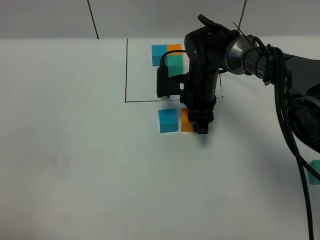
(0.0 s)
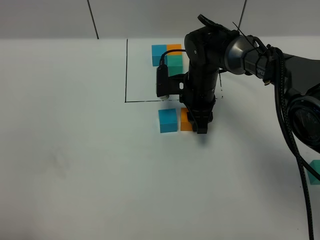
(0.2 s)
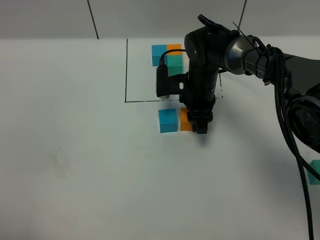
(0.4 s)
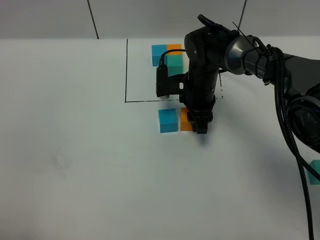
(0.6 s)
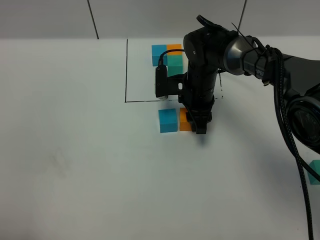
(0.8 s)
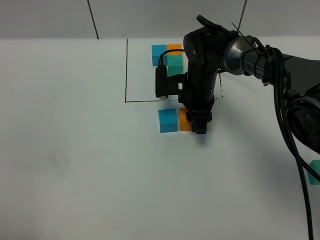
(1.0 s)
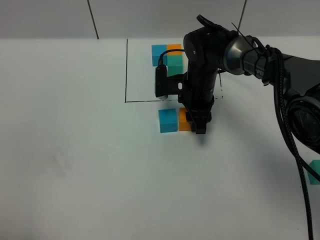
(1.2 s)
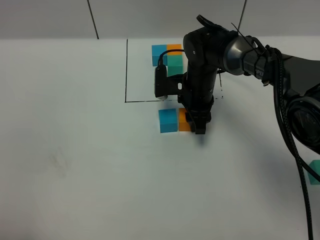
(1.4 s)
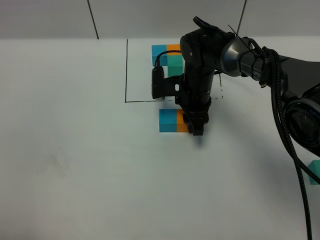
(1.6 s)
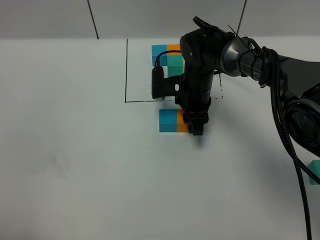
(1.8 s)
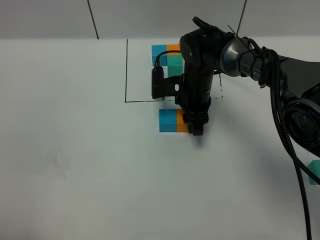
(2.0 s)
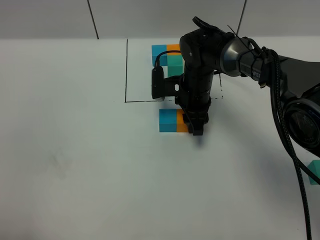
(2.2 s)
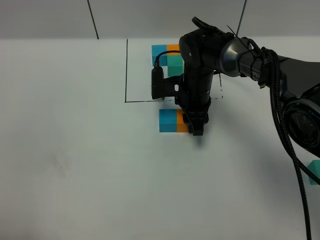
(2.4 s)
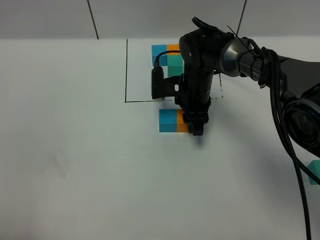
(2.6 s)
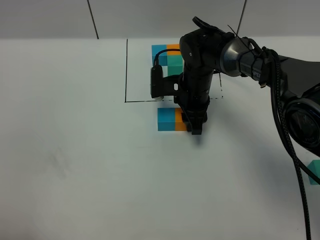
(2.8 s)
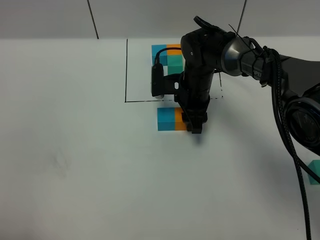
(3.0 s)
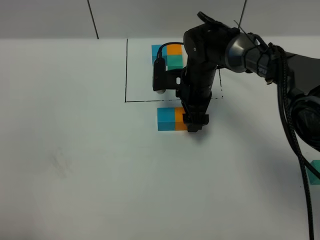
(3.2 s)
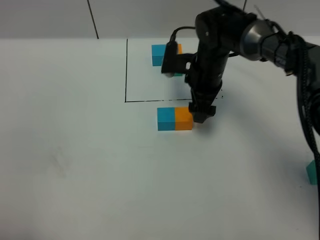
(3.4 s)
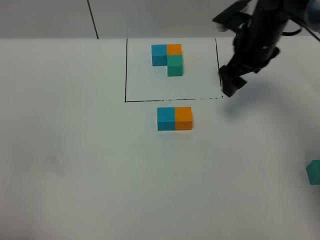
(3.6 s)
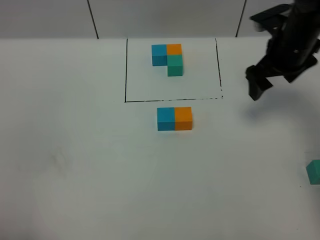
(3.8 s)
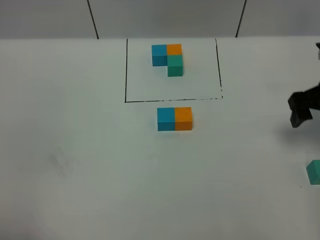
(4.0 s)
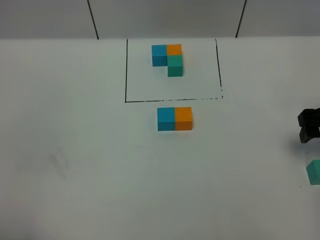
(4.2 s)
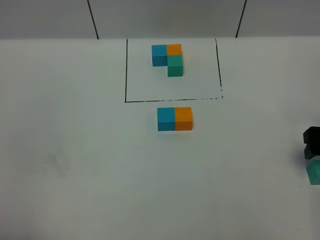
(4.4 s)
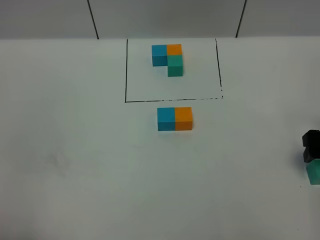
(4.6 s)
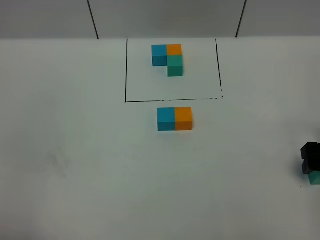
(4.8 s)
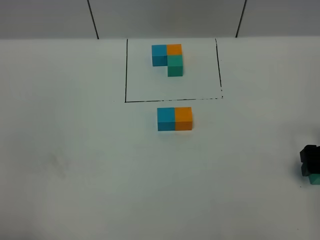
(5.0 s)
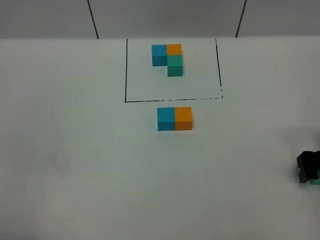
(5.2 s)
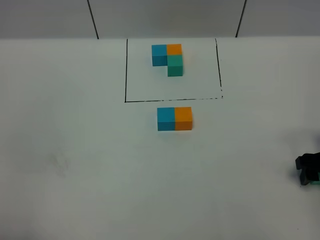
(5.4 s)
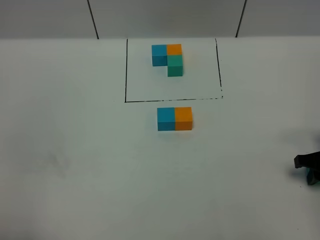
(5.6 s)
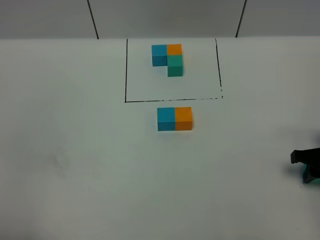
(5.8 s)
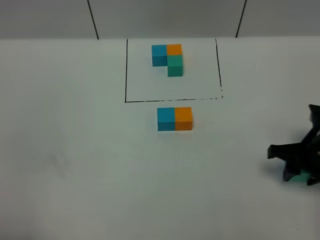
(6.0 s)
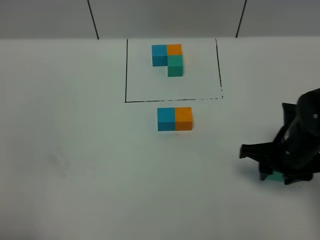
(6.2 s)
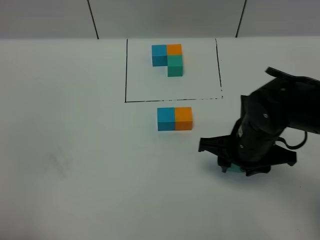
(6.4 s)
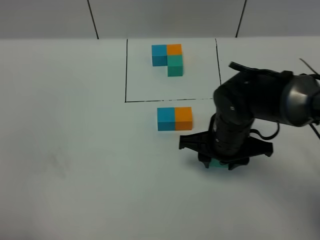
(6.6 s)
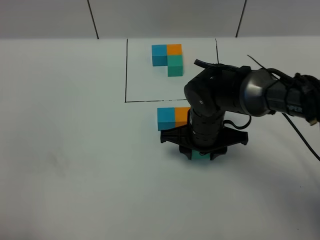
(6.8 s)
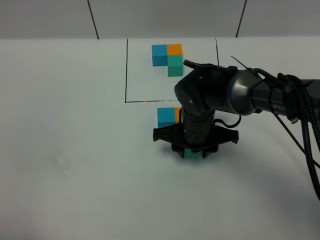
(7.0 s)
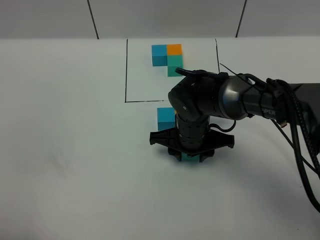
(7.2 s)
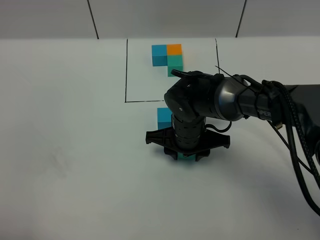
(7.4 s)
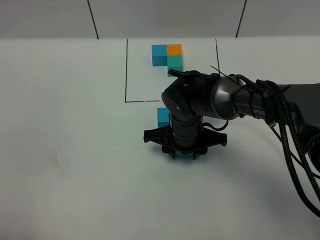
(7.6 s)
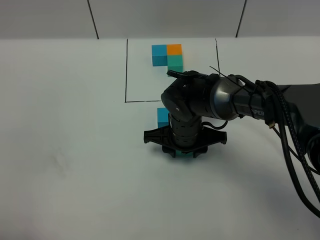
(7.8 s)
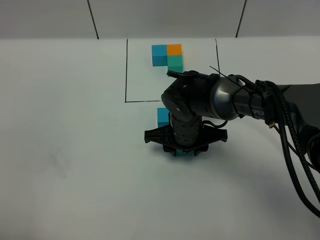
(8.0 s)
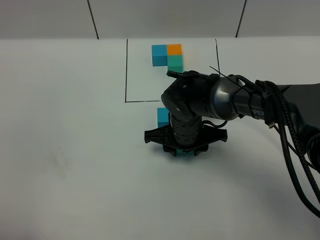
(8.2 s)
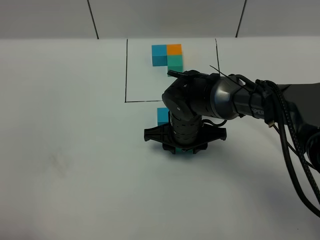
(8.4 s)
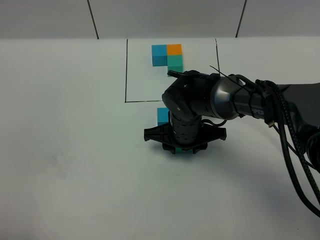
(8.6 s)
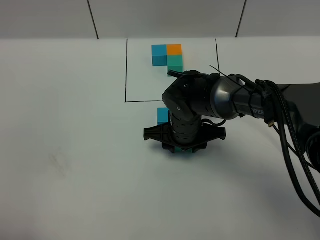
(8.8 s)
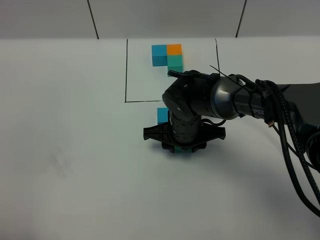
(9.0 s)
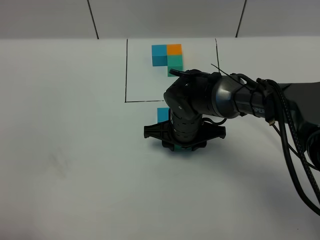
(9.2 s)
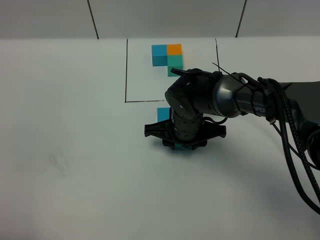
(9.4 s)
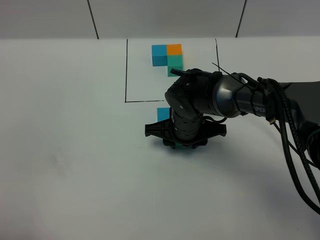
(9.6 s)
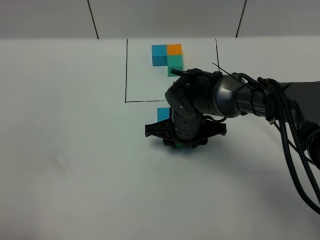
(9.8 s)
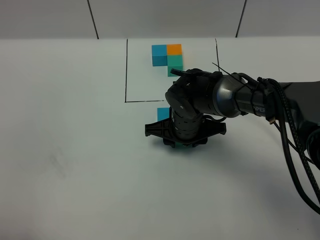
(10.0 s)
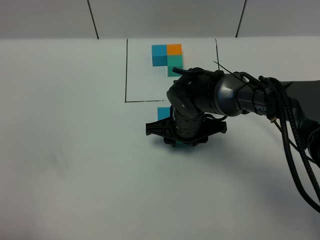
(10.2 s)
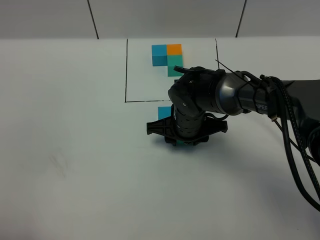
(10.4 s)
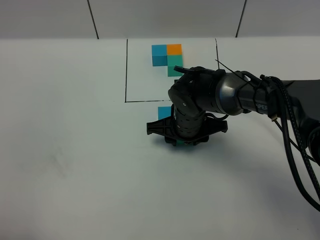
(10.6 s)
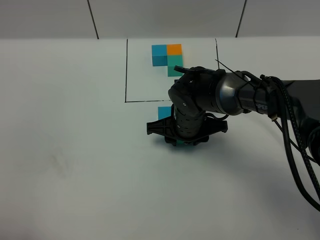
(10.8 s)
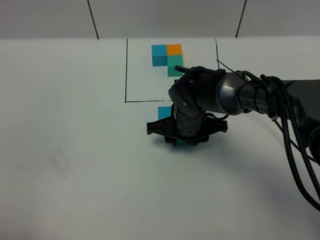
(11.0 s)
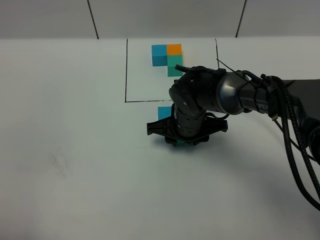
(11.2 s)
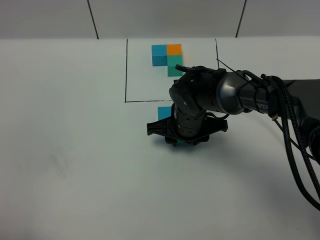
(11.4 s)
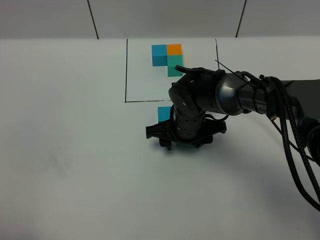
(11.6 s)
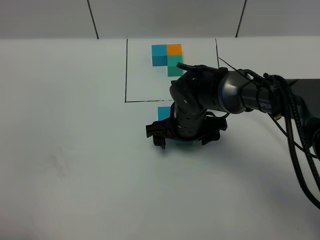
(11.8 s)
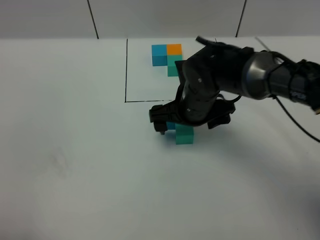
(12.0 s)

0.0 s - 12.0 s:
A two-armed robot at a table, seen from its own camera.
Task of the whole recording: According to the building block template in front, assemble the scattered blocks together.
Step, 0.0 s - 3.2 s: Put the orange build block on the right of the blue build block.
Step, 3.4 s - 11.6 s: Put the green build block on the behind of the orange build block.
0.0 s - 3.0 s: Both grippers stay about where they are.
3.0 s - 4.4 s: The right gripper moves to the right and backward, some 30 cm, and opens up.
4.4 s - 6.0 s: The right gripper travels to the left by roughly 5 cm, and closes up.
6.0 s - 7.6 s: The right gripper moves to the left, some 25 cm.
7.6 s - 10.4 s: There are only small adjustments of the grippers.
10.4 s - 12.0 s: The right gripper goes about 5 cm upward, and opens its fingers.

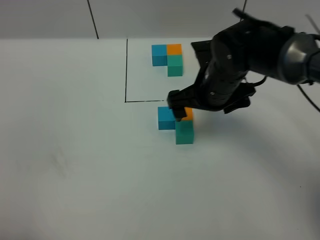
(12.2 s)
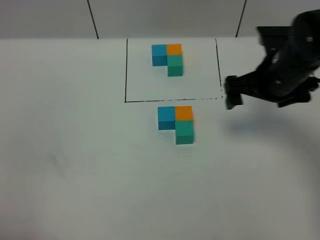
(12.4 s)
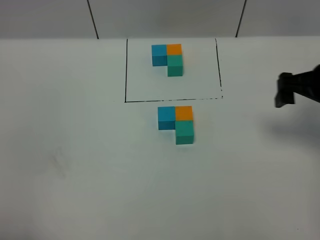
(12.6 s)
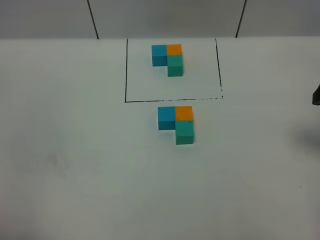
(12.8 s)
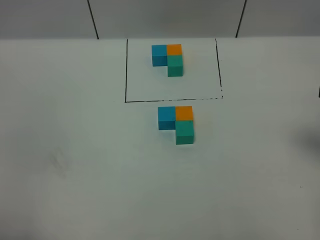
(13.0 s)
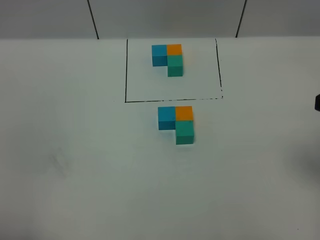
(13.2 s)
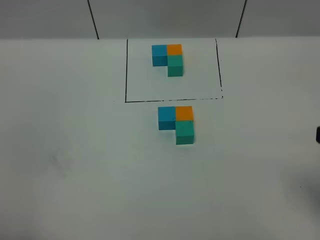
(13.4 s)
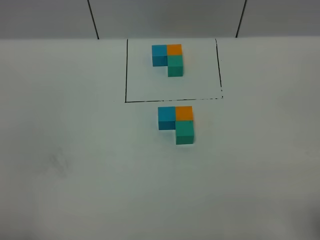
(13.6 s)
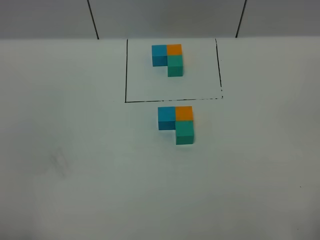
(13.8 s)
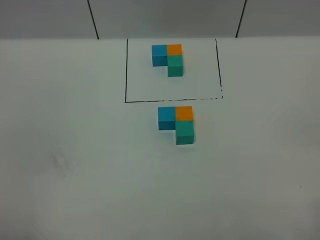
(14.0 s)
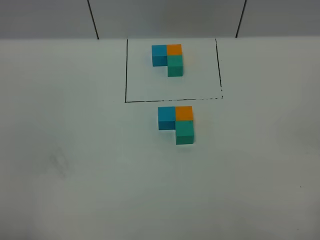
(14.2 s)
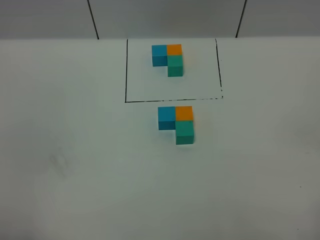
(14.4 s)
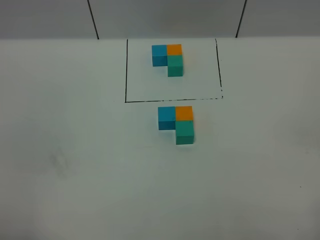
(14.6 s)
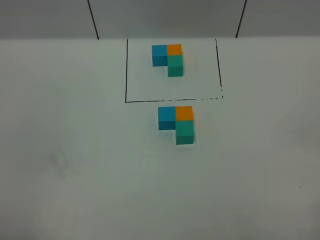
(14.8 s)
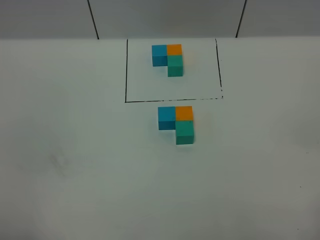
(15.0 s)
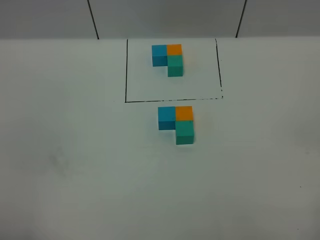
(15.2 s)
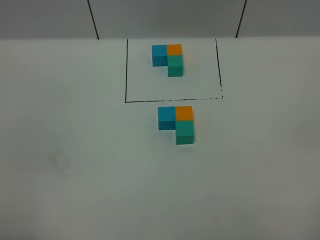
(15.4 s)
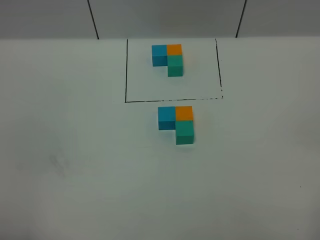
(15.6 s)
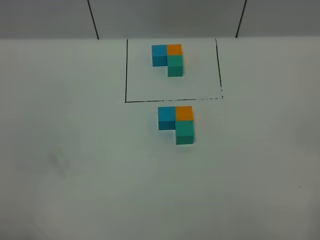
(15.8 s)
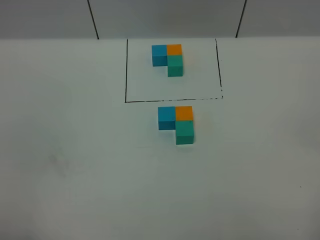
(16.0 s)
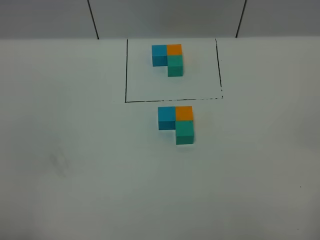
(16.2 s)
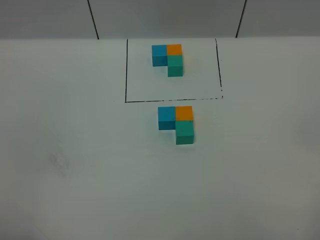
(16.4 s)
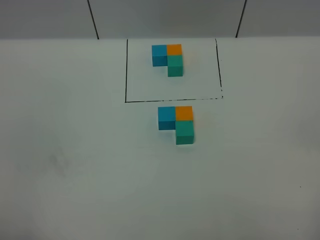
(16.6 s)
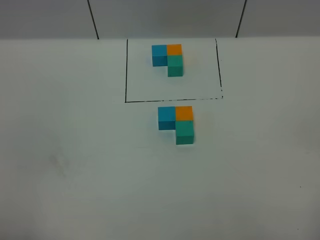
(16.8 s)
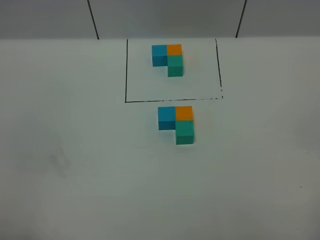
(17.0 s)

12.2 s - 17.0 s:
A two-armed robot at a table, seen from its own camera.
Task of the whole recording: According to the building block template in front, assemble the scattered blocks together.
12.2 s - 13.8 s: The right gripper is displaced backward and to the right by approximately 35 cm.
15.4 s - 17.0 s: Both grippers stay put.

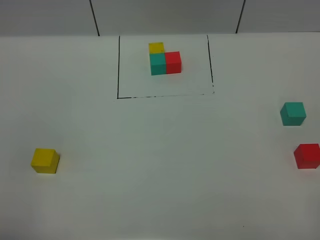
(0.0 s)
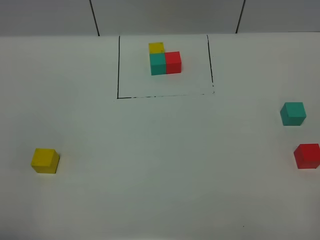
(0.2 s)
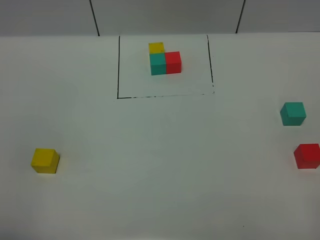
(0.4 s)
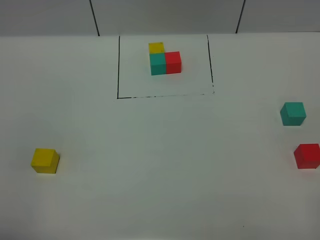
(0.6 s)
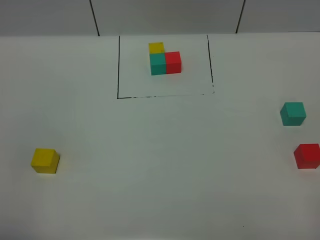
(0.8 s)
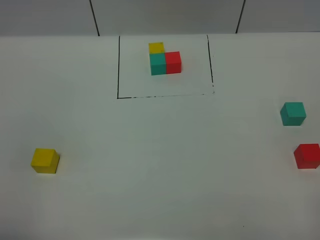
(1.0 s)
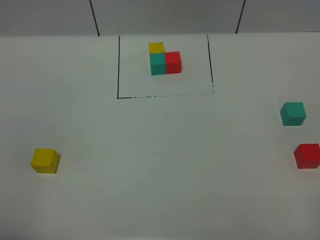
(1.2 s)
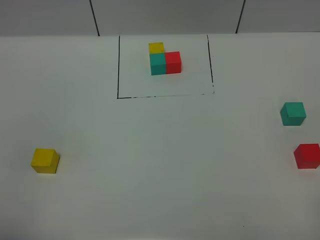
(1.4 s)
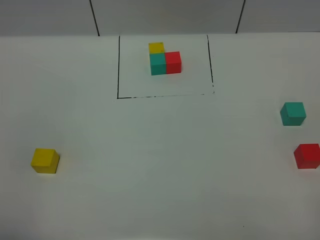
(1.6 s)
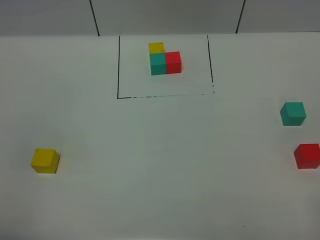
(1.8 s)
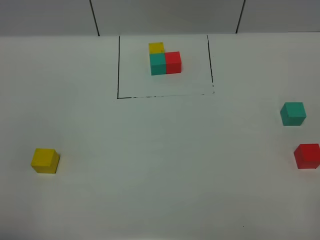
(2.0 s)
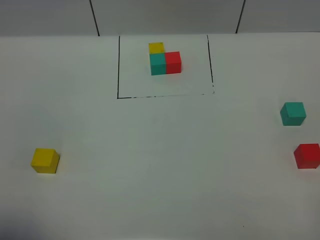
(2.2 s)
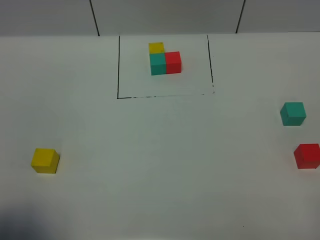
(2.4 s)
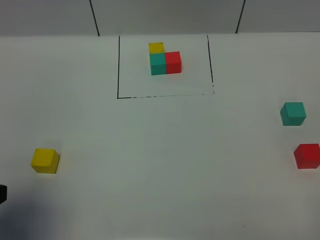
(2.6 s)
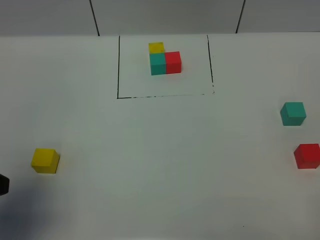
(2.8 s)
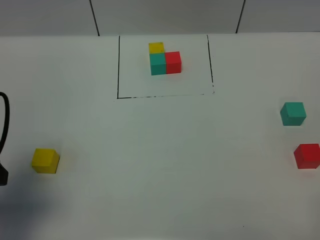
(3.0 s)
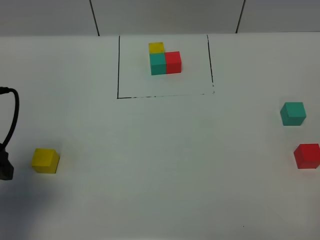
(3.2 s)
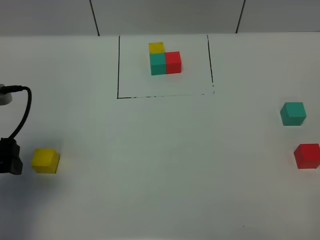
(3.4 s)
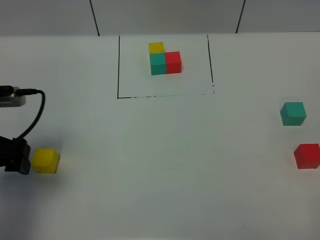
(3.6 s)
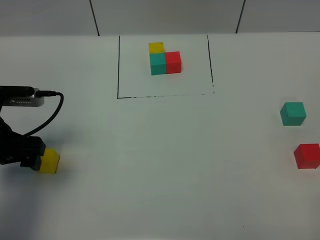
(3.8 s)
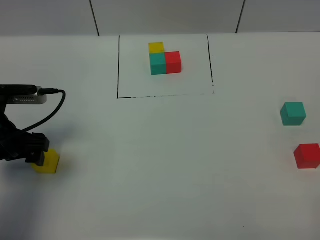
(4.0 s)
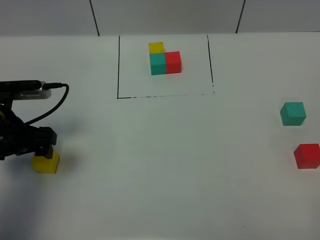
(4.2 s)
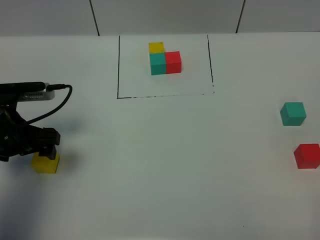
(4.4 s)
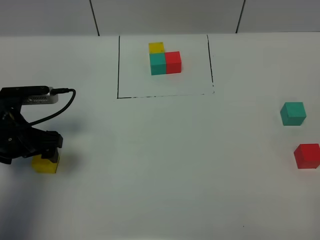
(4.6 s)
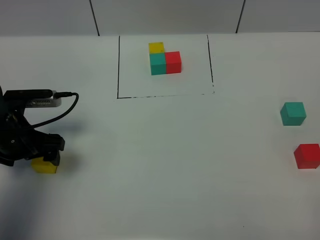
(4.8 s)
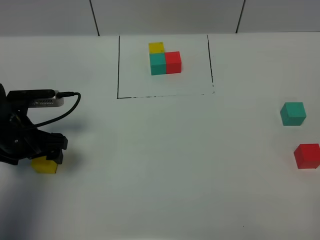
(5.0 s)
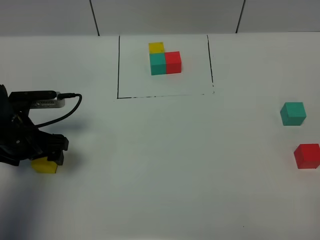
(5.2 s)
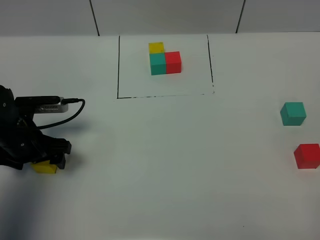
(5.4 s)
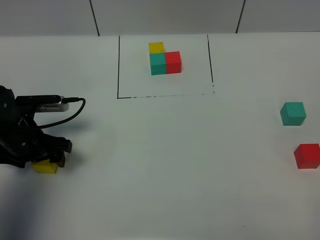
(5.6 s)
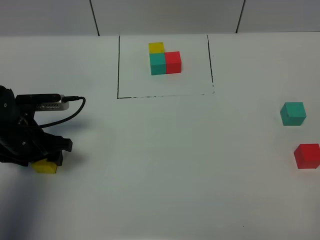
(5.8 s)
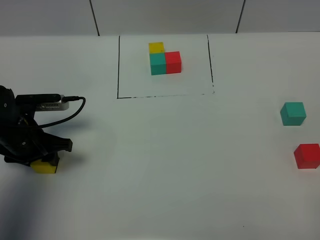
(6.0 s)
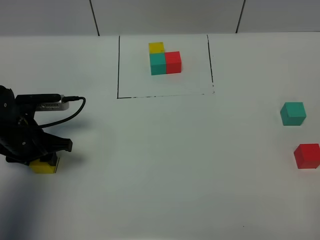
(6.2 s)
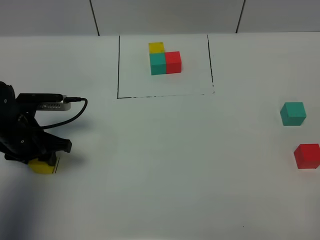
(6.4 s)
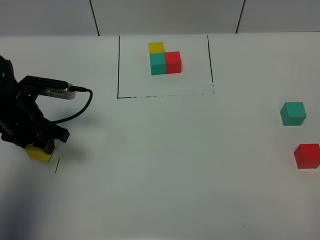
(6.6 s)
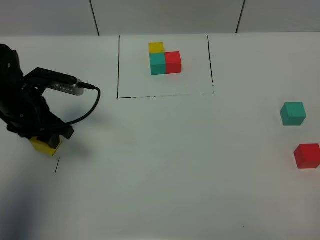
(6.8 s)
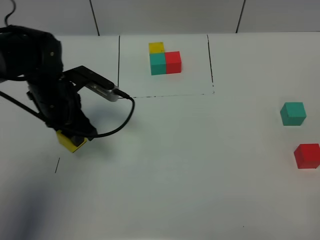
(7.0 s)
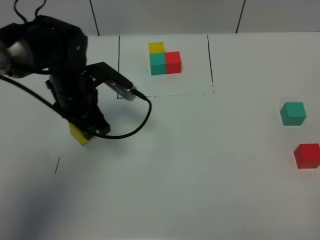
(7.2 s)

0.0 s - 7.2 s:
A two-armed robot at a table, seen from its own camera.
Task of the whole recording: According to the building block template in front, assemble the scattered blocks together.
0.0 s - 1.4 s: Both grippers stay about where they are.
1.4 s - 2.8 s: The left gripper moves forward, about 15 cm.
2.8 s - 4.4 s: The left gripper goes approximately 20 cm forward and downward.
4.4 s - 5.8 s: The left gripper closes up.
5.8 s - 7.2 s: The left gripper moves to the right, forward and upward, approximately 15 cm, and closes its fingers.
